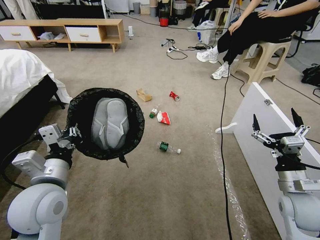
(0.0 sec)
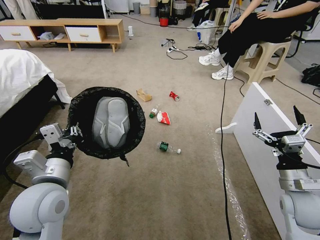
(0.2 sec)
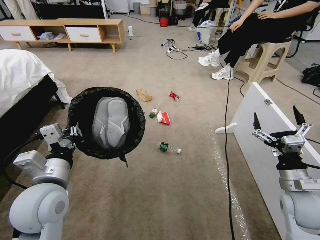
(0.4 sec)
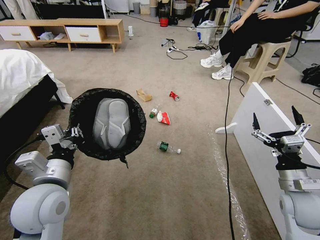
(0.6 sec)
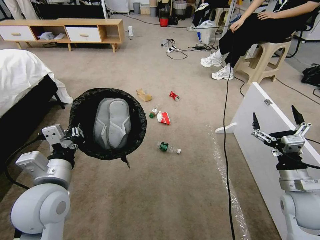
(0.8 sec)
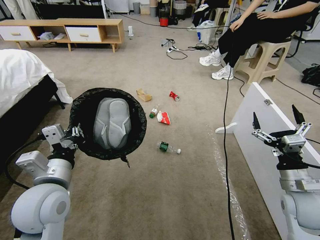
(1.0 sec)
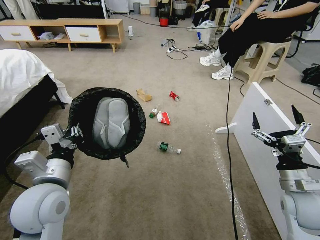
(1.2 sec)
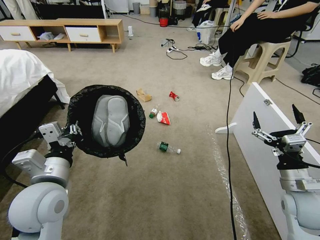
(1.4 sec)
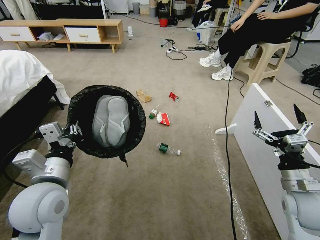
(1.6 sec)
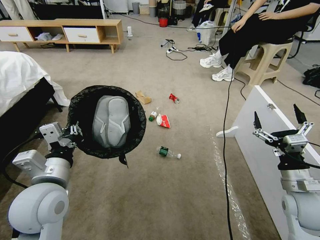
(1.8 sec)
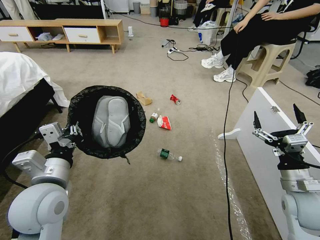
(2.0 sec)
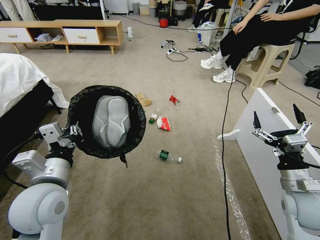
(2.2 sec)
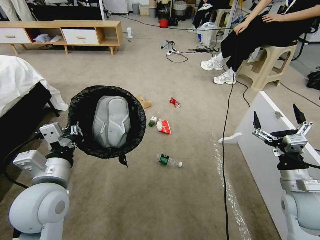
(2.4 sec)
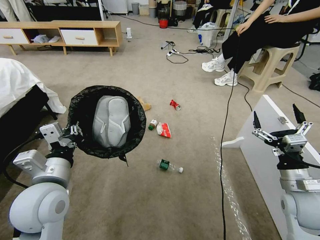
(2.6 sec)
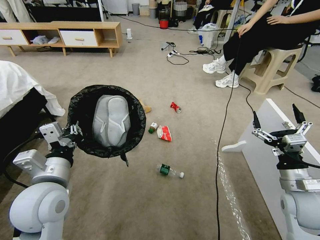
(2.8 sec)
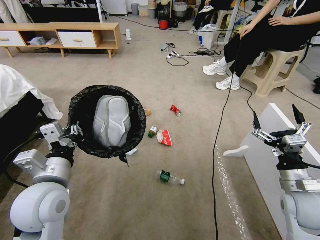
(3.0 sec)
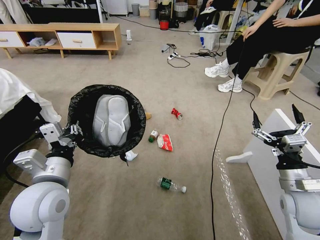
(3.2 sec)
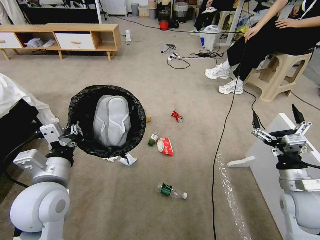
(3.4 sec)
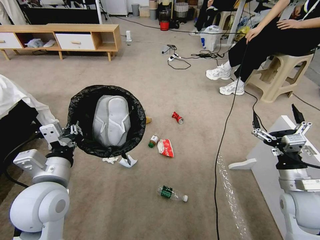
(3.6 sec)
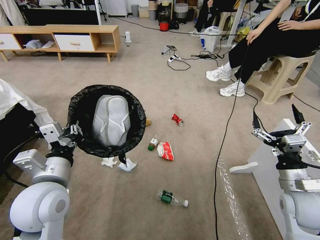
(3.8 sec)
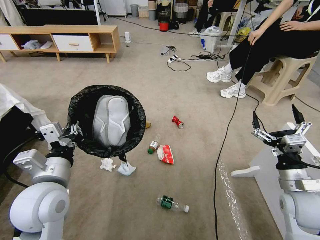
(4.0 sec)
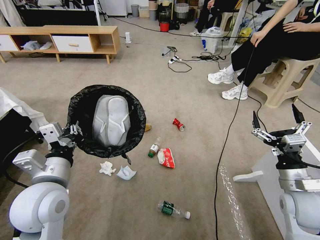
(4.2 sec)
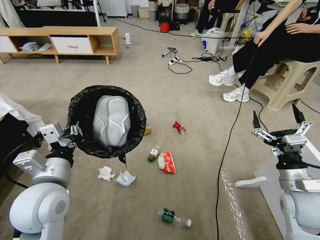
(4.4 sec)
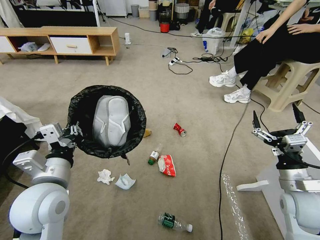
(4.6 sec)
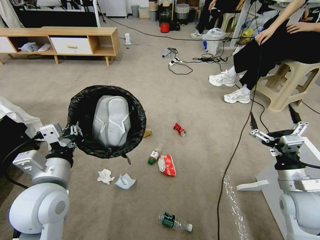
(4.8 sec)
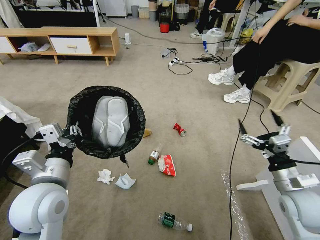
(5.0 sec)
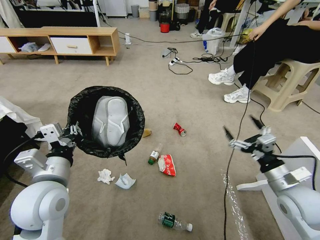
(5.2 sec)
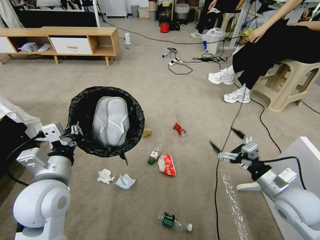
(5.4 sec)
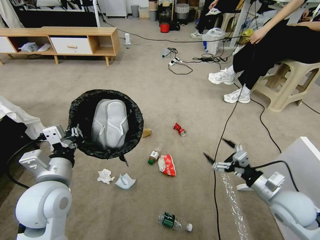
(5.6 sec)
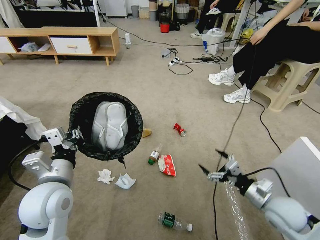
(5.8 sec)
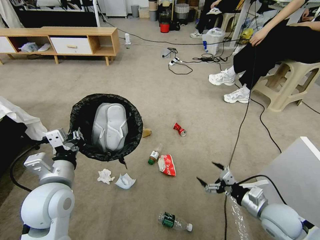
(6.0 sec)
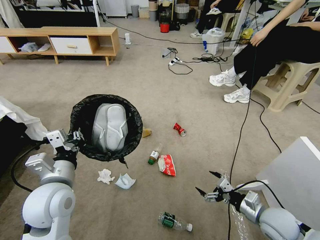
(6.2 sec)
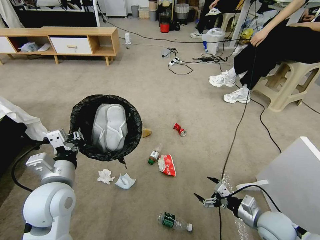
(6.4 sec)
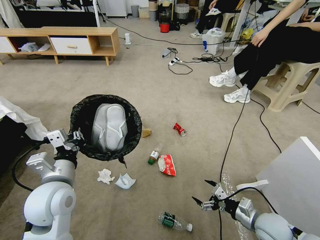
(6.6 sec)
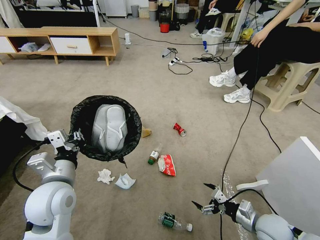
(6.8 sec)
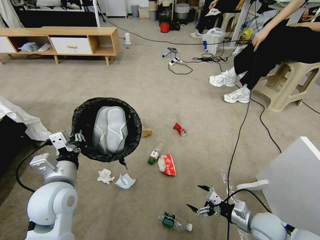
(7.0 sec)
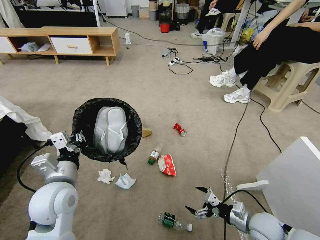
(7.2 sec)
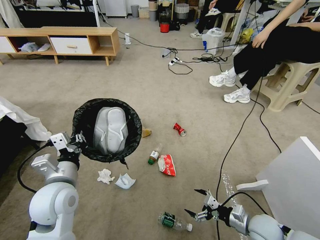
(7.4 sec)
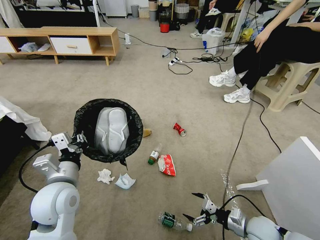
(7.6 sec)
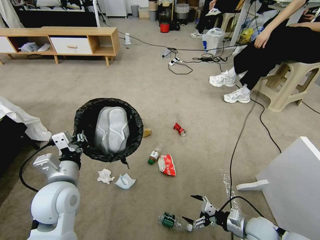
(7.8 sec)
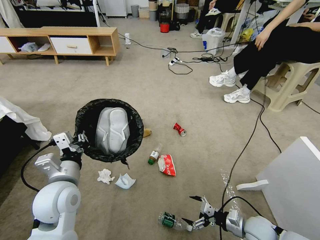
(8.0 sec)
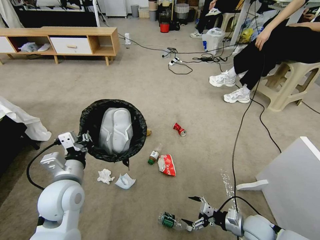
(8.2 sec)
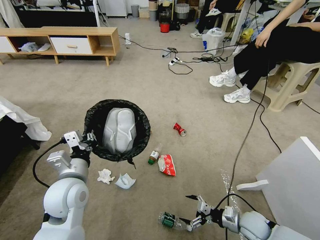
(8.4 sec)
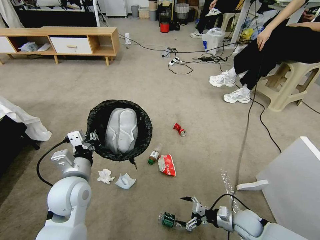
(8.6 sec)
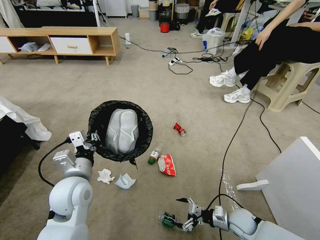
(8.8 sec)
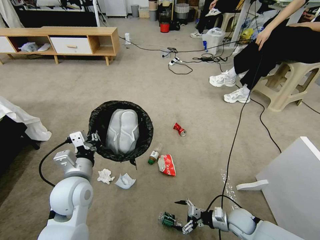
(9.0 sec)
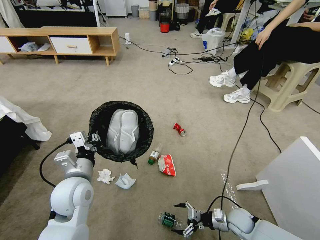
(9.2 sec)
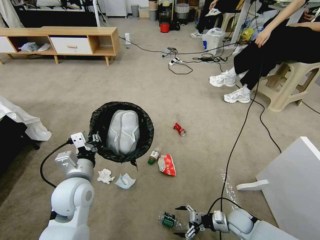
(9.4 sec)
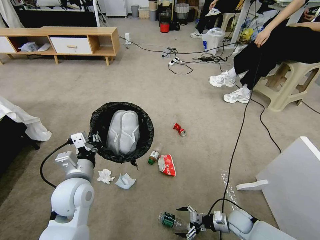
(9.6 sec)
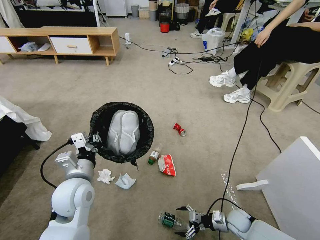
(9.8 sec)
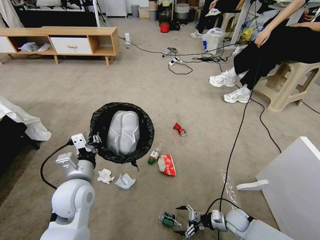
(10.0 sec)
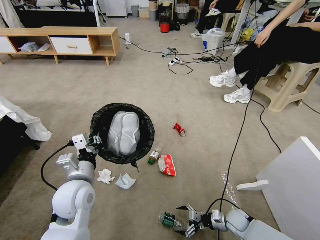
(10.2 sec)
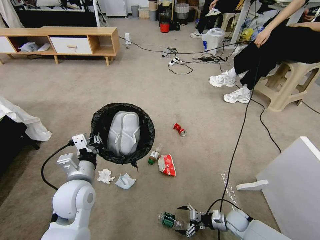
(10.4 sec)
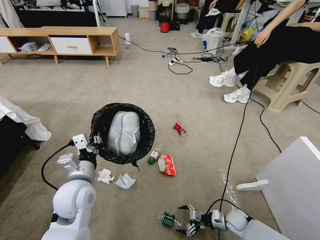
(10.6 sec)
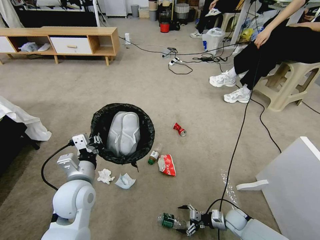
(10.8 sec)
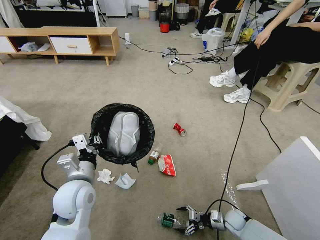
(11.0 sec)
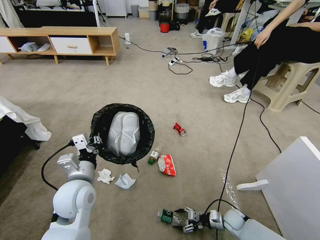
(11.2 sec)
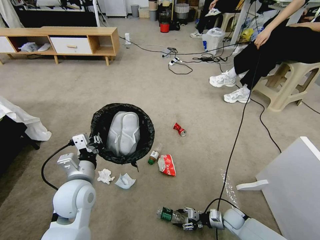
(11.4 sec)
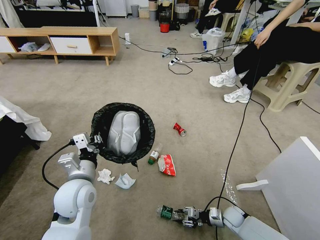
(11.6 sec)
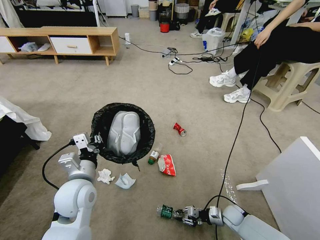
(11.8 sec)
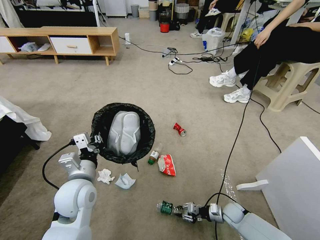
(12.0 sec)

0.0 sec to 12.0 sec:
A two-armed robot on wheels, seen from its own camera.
Task of the whole recording: Pick up the trash bin and place the garbage on the floor into it.
4.4 sec to 6.0 sec: The right gripper travels downward by roughly 10 cm.
6.0 sec to 7.6 sec: The right gripper shifts roughly 10 cm downward.
7.6 sec to 9.0 sec: The right gripper is displaced downward by about 5 cm.
9.0 sec to 10.4 sec: The right gripper heads downward, covering roughly 5 cm.
10.4 sec to 12.0 sec: The right gripper closes its fingers.

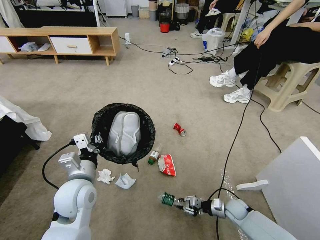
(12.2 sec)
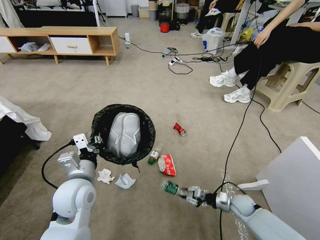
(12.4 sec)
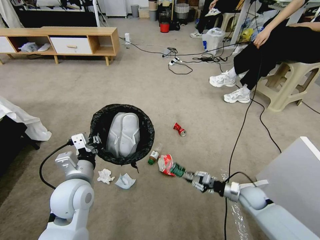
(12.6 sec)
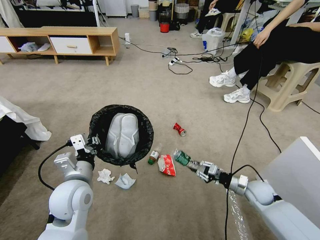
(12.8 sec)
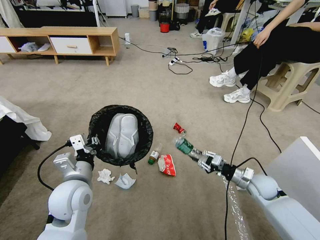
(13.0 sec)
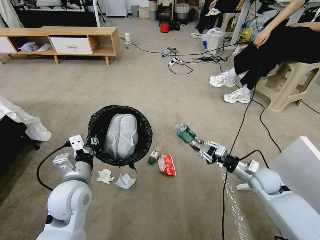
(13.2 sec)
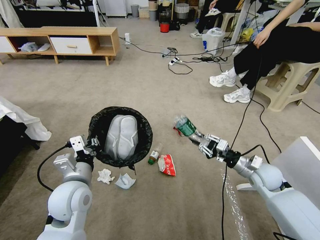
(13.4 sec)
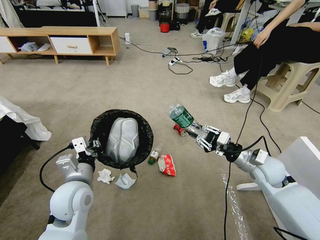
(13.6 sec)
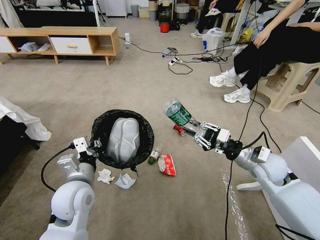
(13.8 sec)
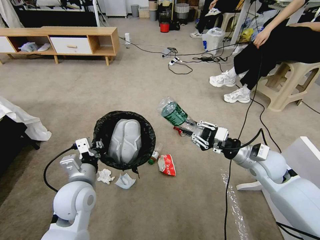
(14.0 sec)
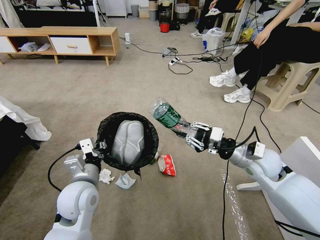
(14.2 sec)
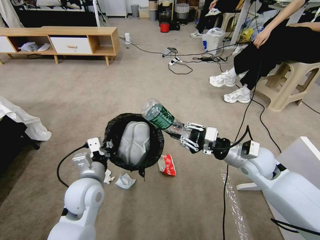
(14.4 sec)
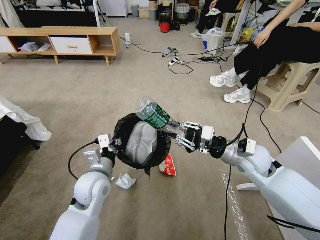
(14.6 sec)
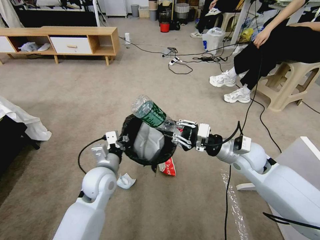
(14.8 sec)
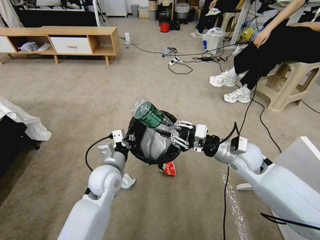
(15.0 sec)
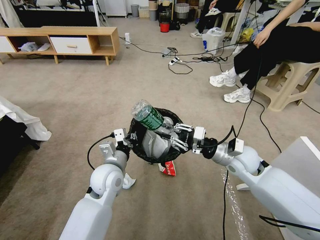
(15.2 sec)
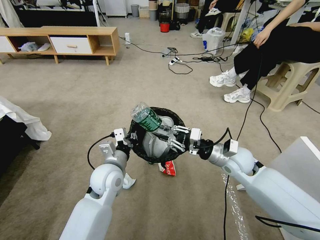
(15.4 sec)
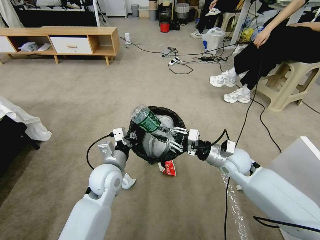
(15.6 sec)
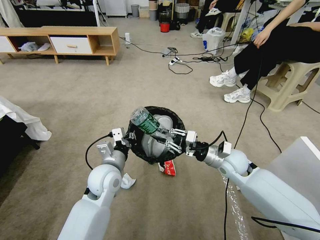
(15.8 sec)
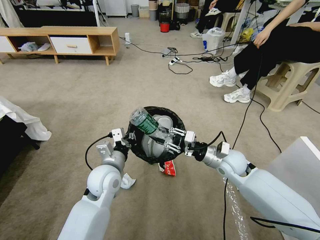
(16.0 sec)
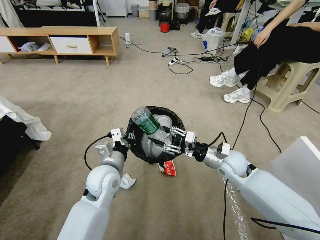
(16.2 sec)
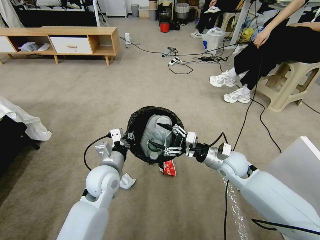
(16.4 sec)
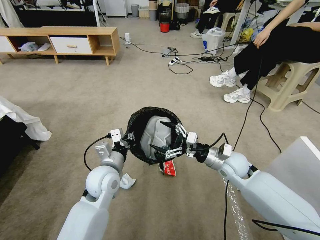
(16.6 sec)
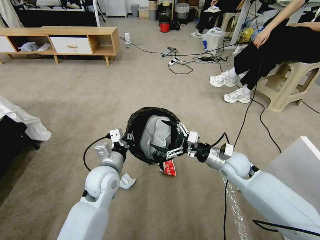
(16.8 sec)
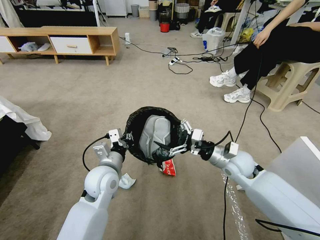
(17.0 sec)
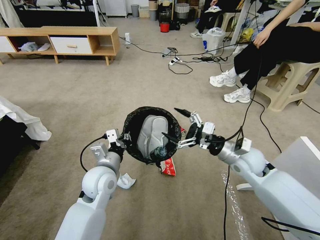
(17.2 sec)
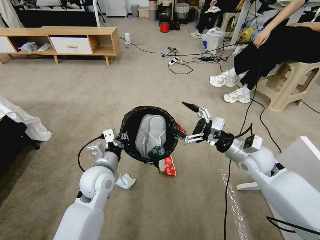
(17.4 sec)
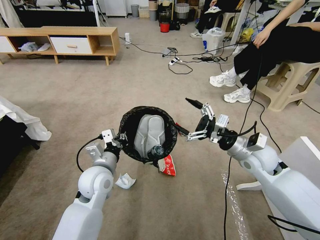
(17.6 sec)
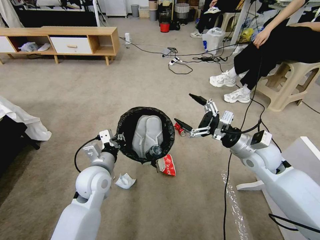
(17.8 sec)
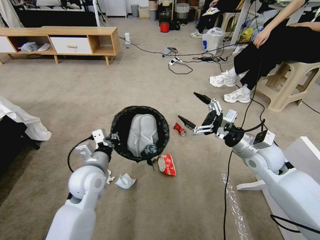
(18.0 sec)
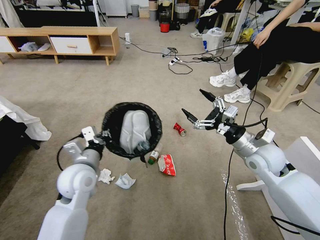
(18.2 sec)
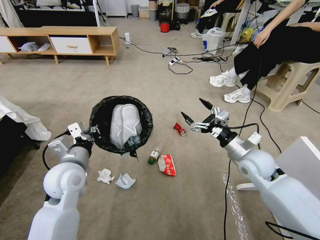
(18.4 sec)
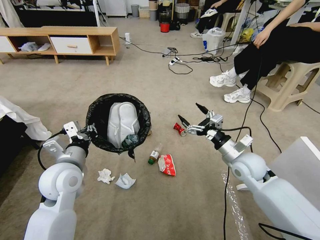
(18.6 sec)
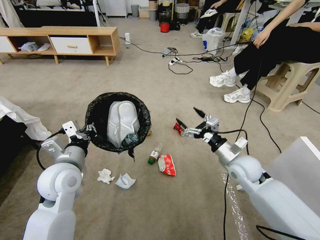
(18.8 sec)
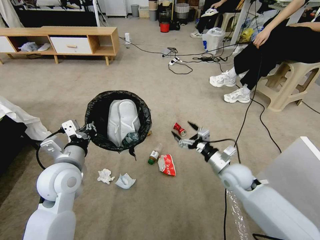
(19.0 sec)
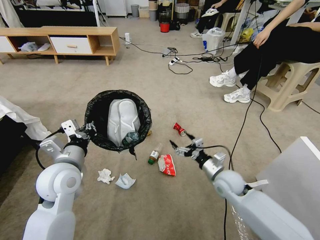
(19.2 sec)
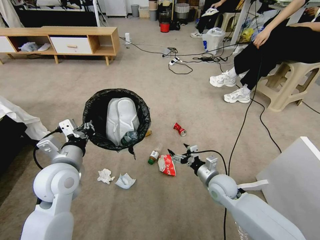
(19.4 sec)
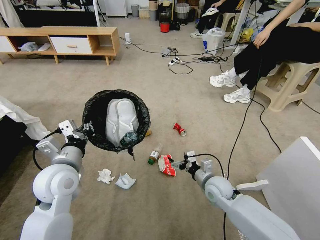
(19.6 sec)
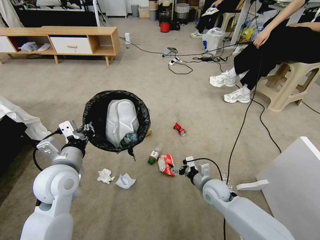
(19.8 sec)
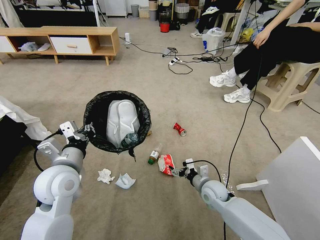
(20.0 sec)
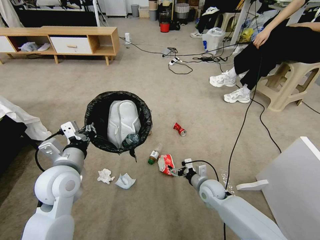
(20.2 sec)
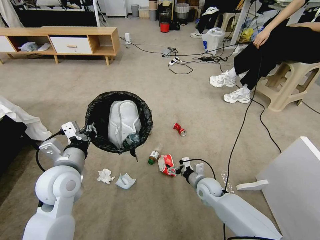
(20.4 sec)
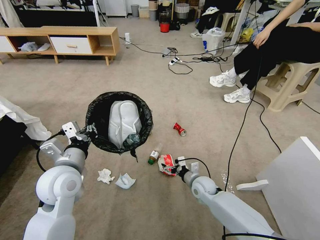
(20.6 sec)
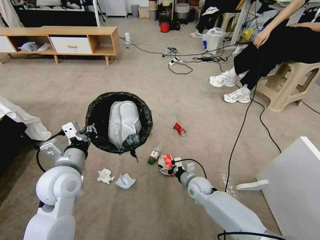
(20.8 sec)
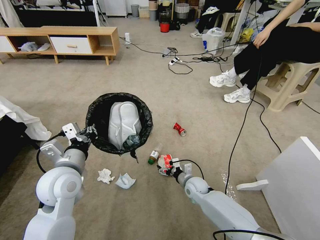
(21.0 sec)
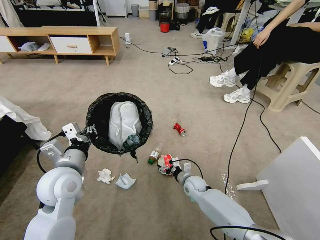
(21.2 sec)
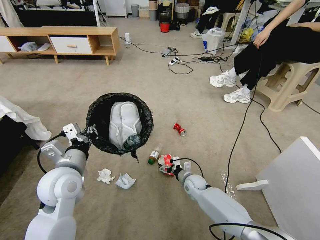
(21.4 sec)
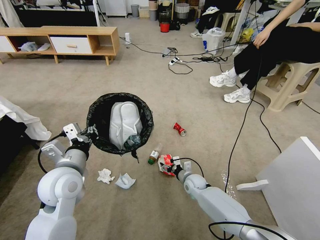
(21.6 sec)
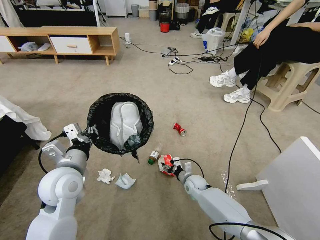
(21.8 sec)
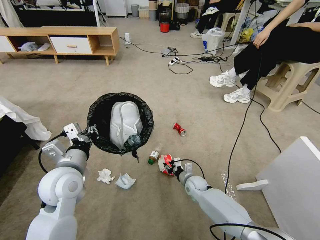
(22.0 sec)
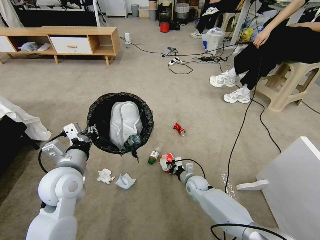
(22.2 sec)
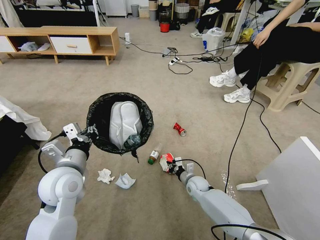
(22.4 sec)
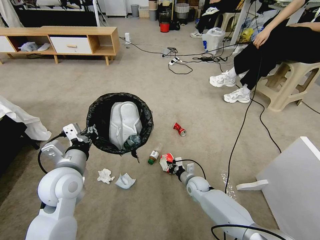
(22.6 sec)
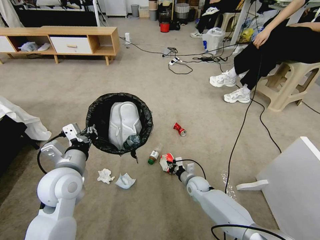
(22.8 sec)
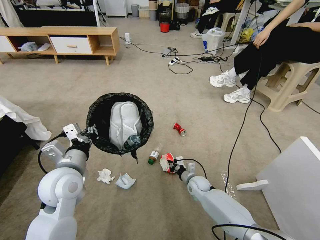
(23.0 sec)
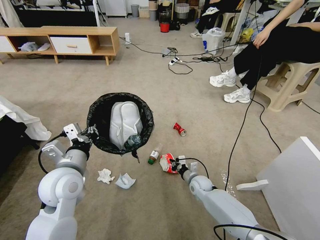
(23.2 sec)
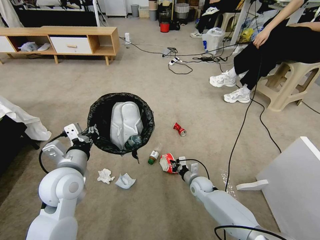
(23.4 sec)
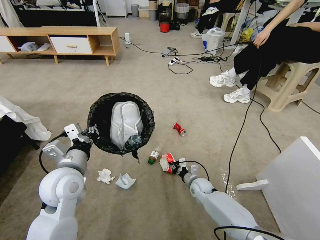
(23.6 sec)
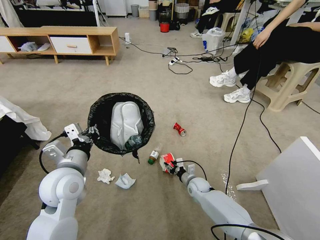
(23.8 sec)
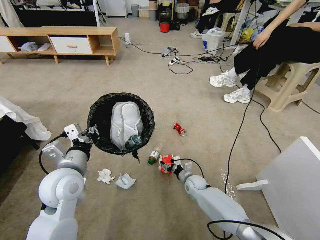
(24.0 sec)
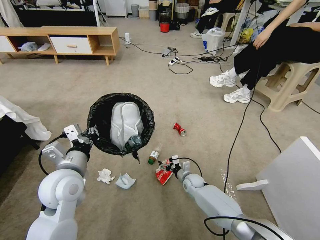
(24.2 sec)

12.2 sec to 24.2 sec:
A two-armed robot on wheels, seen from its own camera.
Task of the whole recording: Pick up the trash bin and place the garbage on the floor into it.
12.2 sec to 13.8 sec: The right gripper travels upward by roughly 30 cm.
13.8 sec to 15.2 sec: The right gripper shifts roughly 5 cm to the left; the left gripper goes about 10 cm forward and to the right.
15.2 sec to 16.6 sec: The right gripper opens.
16.6 sec to 18.2 sec: The right gripper is displaced upward and to the right by some 10 cm, while the left gripper heads to the left, covering roughly 5 cm.
18.2 sec to 19.8 sec: The right gripper goes some 20 cm downward and to the left.
19.8 sec to 21.2 sec: The right gripper goes about 10 cm downward, forward and to the left.
21.2 sec to 22.6 sec: The right gripper closes up.
22.6 sec to 24.2 sec: The right gripper opens.
